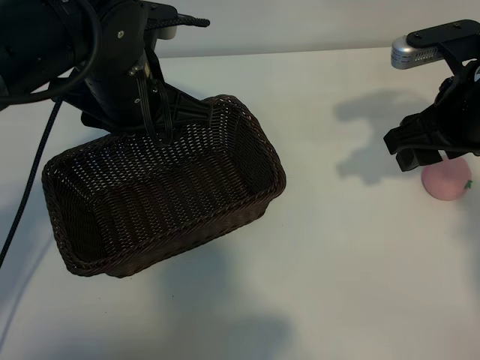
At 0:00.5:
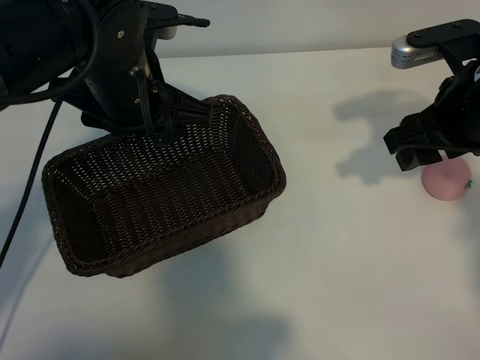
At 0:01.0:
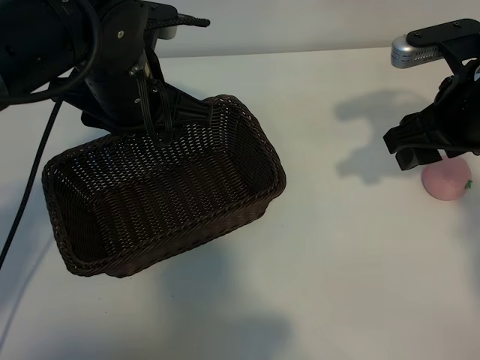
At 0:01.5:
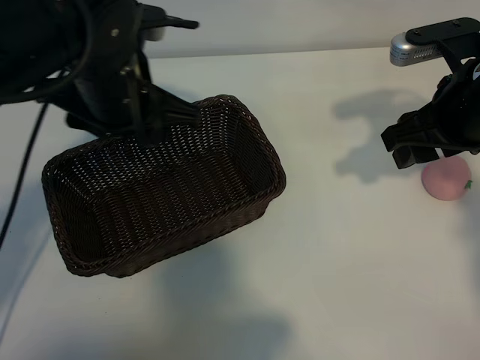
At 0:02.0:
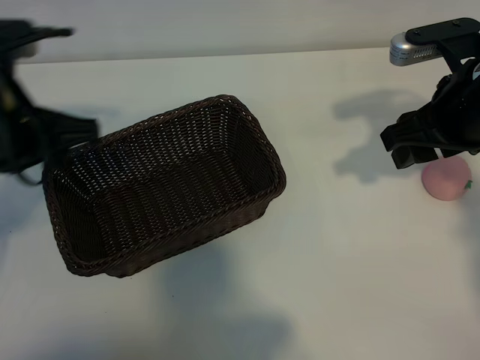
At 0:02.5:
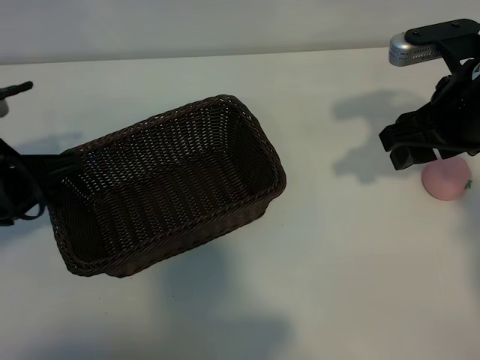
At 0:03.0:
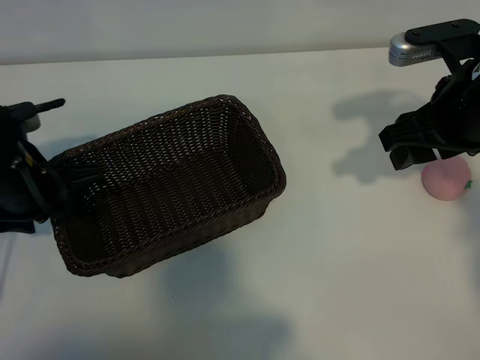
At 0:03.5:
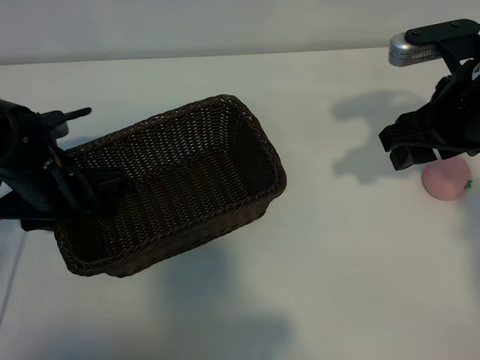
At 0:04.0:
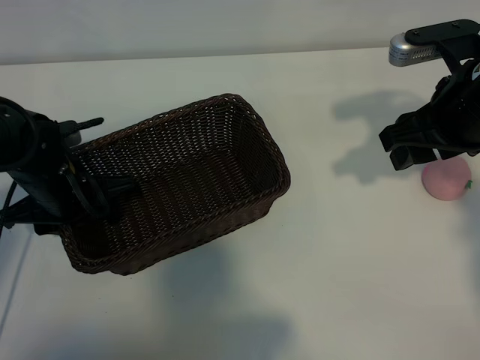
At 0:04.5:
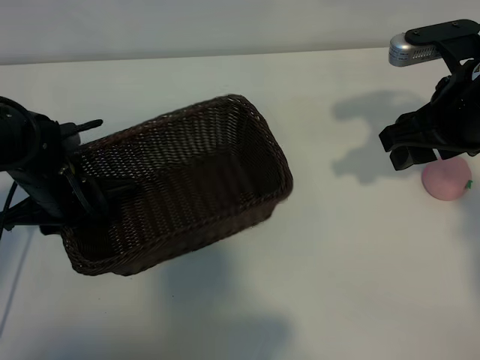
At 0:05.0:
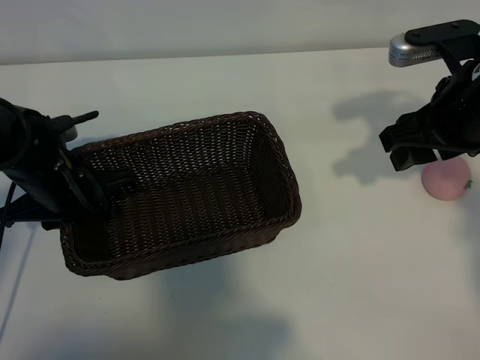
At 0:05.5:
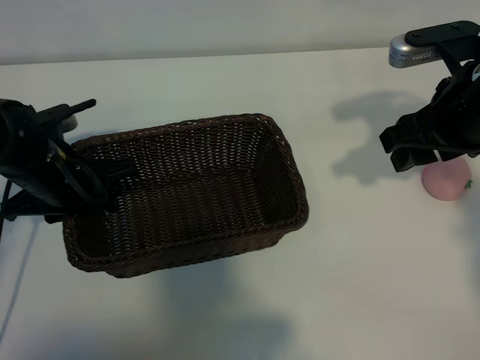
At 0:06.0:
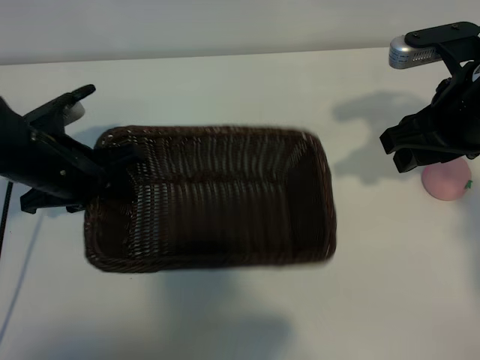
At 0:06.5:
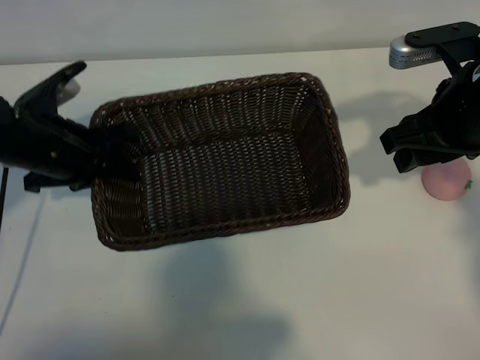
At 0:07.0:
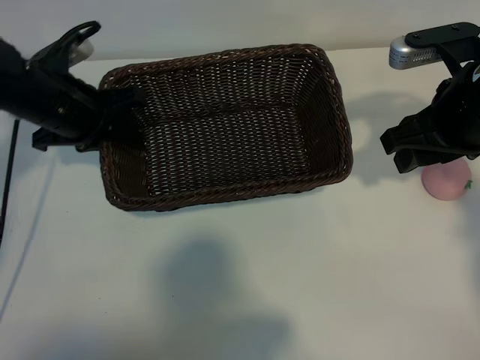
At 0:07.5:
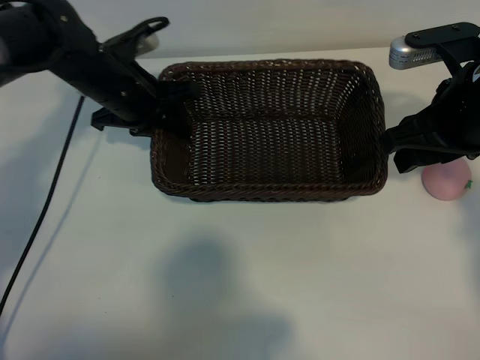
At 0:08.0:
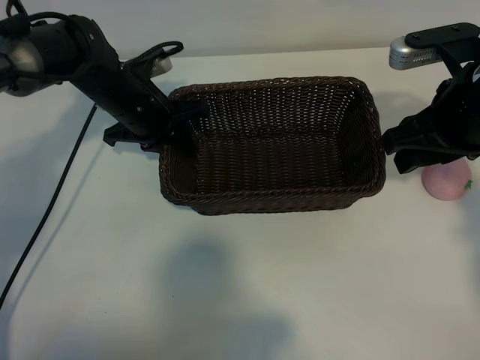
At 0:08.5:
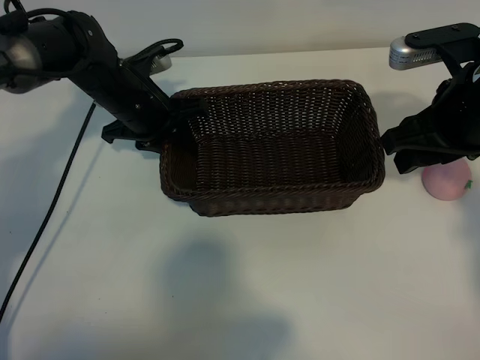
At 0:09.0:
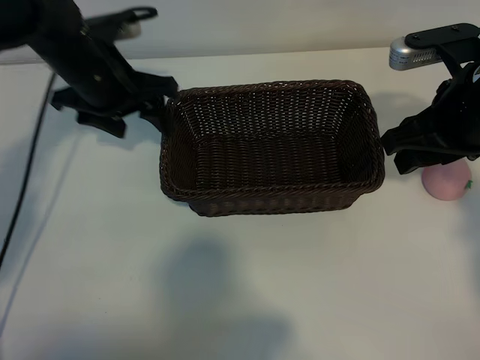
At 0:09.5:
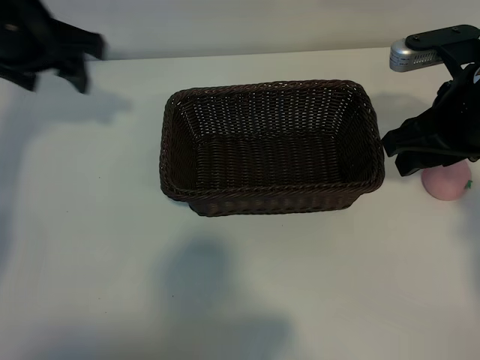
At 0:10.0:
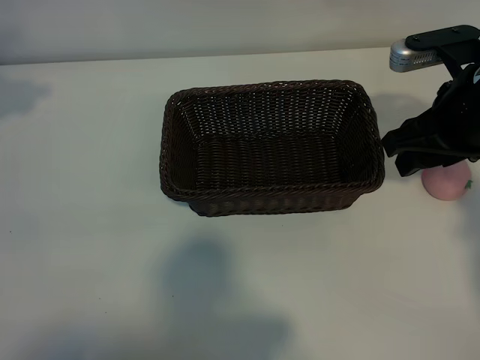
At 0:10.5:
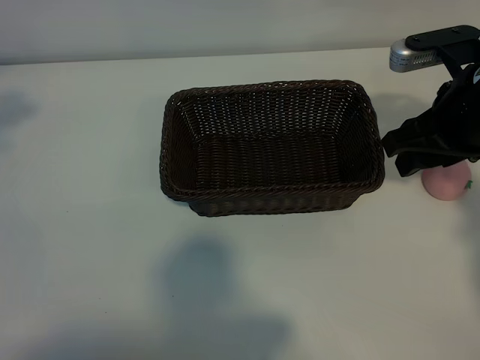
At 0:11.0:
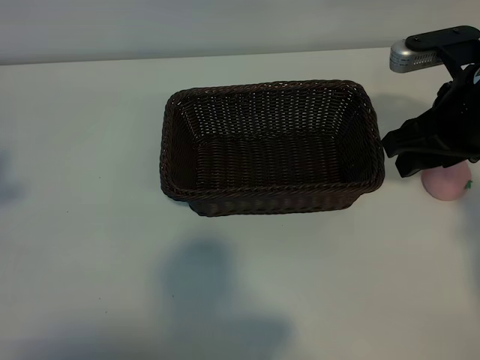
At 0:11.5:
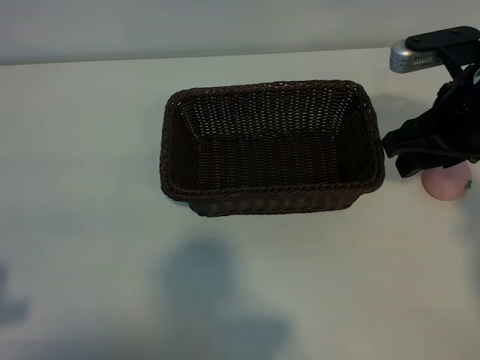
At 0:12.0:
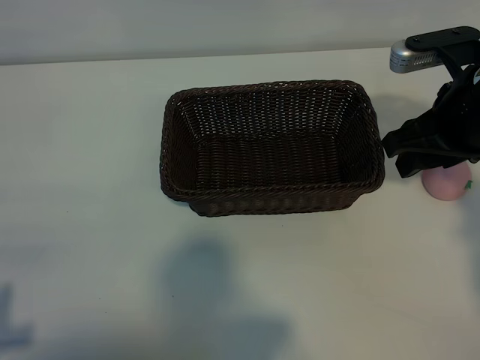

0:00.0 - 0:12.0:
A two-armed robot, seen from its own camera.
Task of the whole recording: pick up the peach and put it into the basket.
Step, 0:01.5 - 0:04.5: Grasp the basket with left gripper.
Step, 0:05.0 - 0:08.5: Place the basket in the center of view with left gripper.

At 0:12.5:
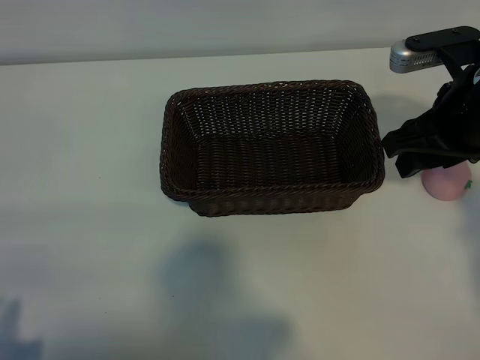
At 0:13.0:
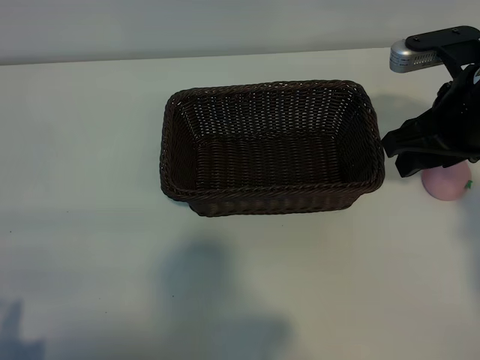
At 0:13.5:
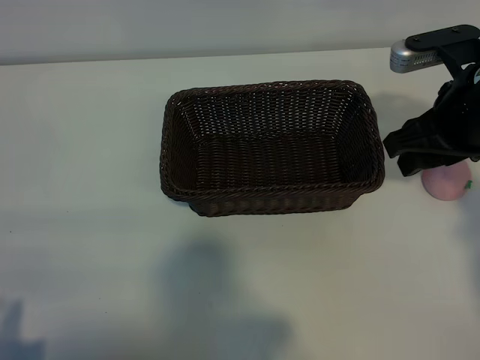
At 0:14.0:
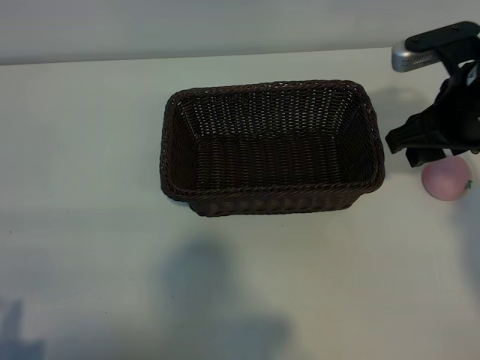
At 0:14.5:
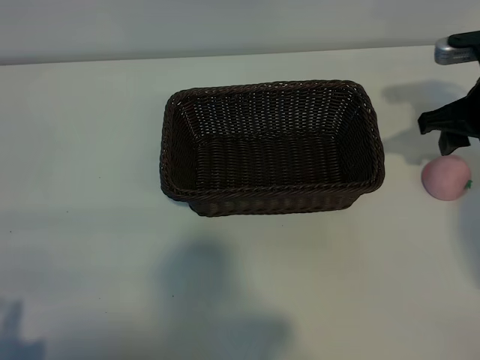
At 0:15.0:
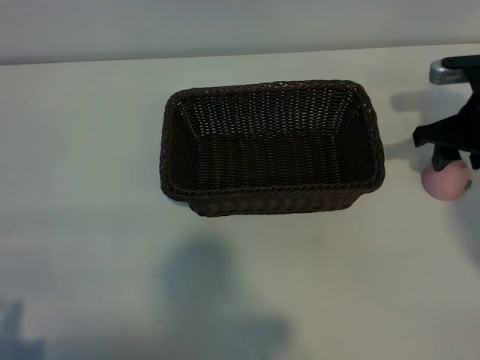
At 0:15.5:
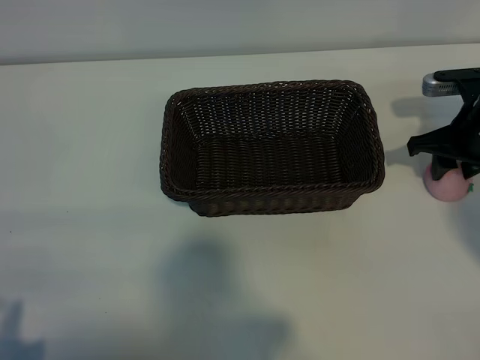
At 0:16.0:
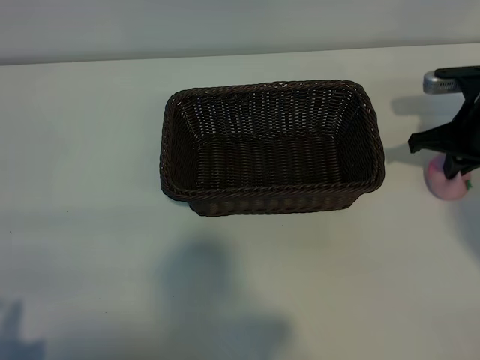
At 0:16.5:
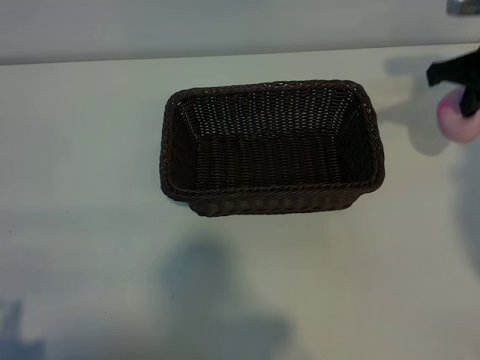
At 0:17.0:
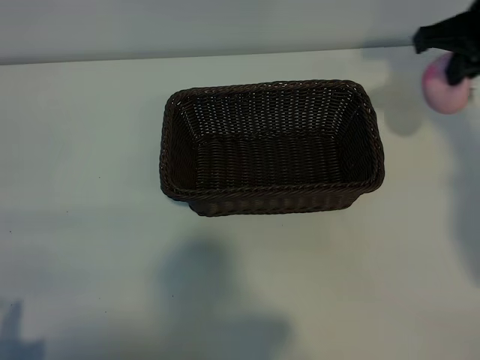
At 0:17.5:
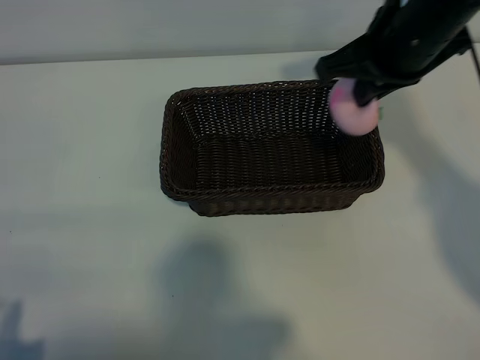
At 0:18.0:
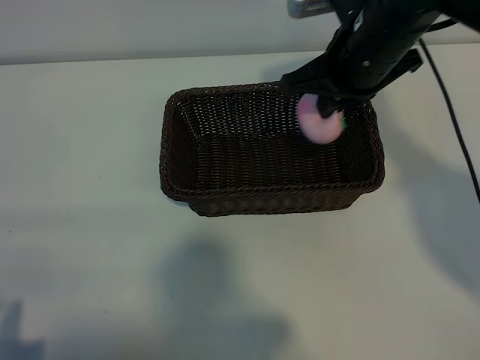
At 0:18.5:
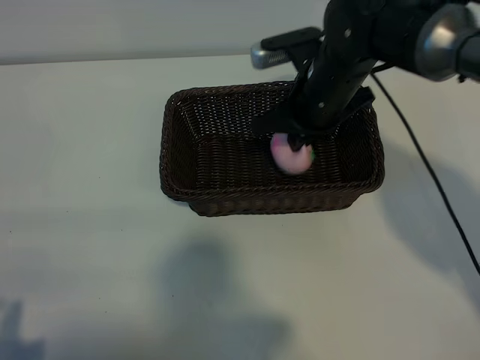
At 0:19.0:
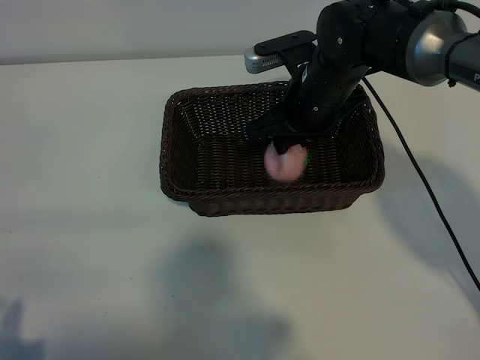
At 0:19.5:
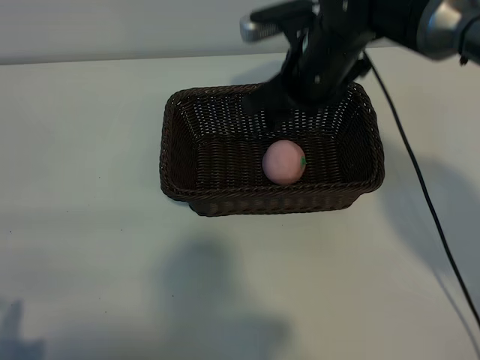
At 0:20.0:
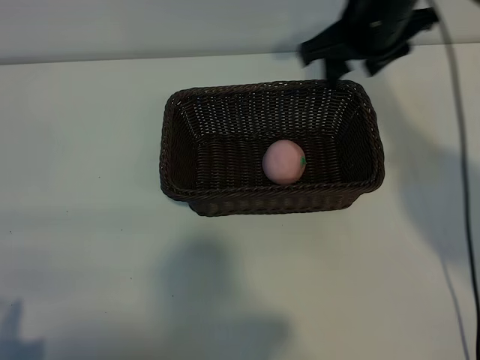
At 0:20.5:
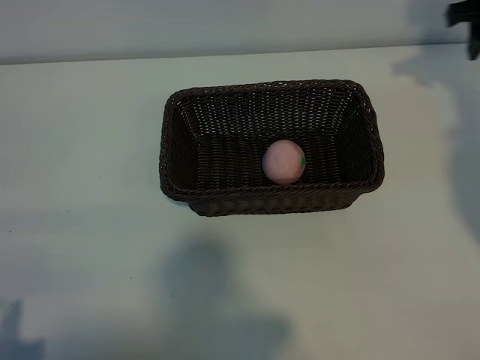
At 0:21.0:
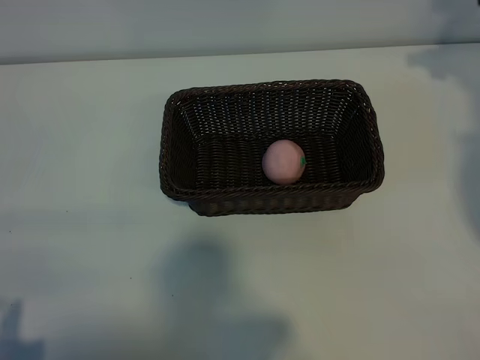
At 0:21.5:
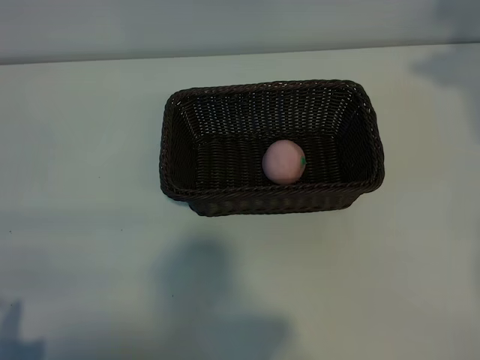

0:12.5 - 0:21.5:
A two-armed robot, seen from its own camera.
Task of the whole recording: pick up the peach and put it into the basket.
Step, 0:12.5 - 0:15.5: Grasp the peach with right gripper.
Step, 0:16.5 - 0:19.0: Place the peach in the basket with right gripper.
